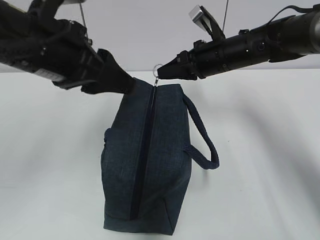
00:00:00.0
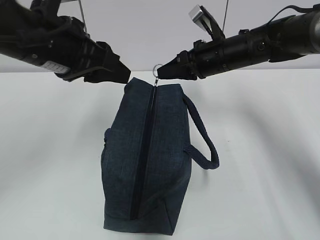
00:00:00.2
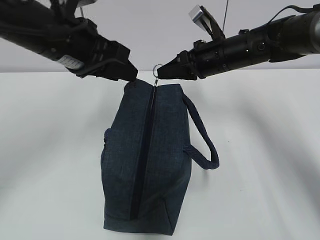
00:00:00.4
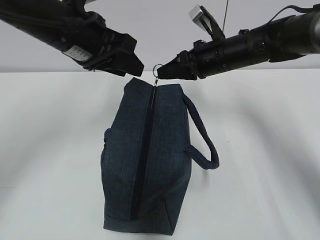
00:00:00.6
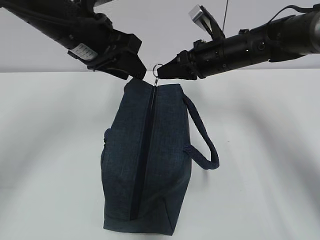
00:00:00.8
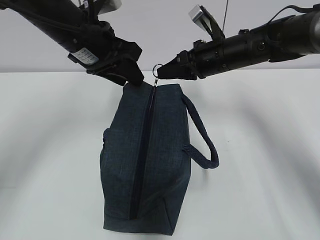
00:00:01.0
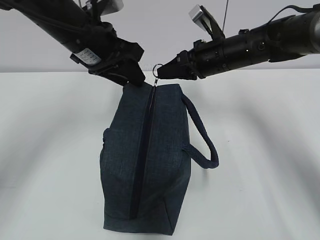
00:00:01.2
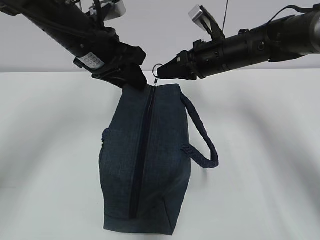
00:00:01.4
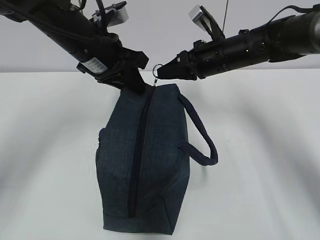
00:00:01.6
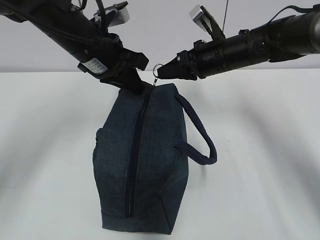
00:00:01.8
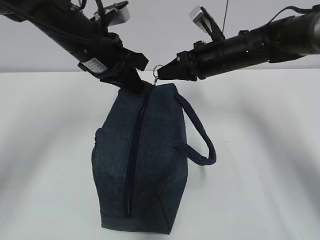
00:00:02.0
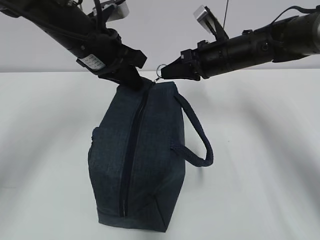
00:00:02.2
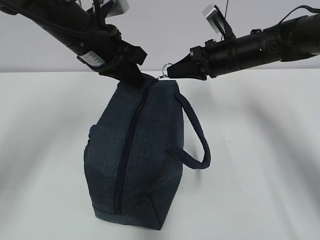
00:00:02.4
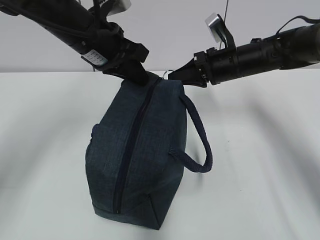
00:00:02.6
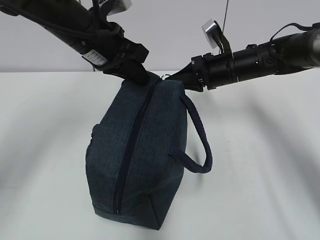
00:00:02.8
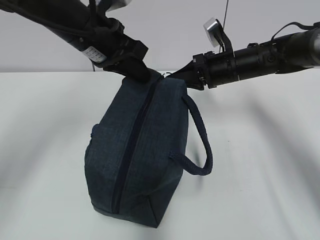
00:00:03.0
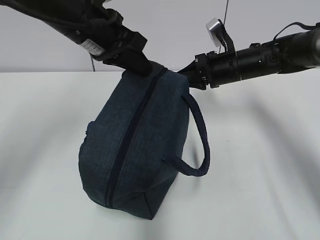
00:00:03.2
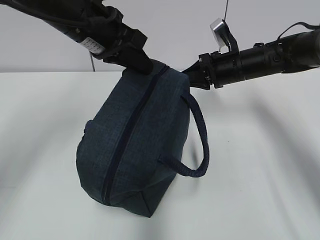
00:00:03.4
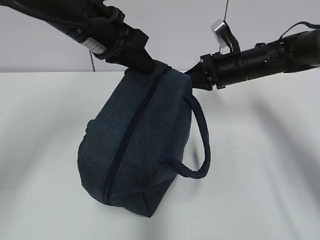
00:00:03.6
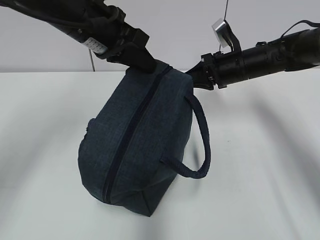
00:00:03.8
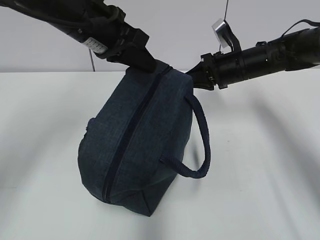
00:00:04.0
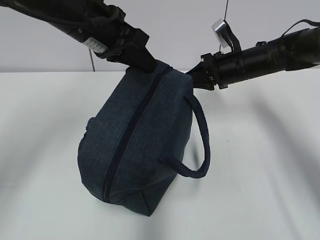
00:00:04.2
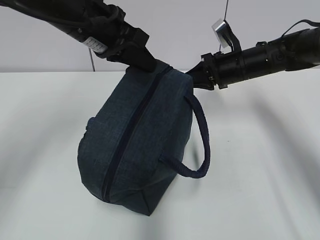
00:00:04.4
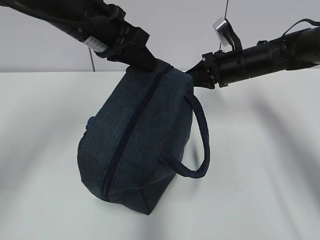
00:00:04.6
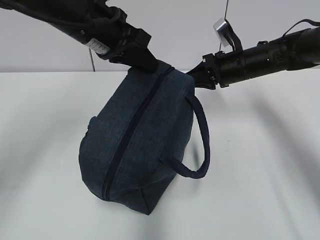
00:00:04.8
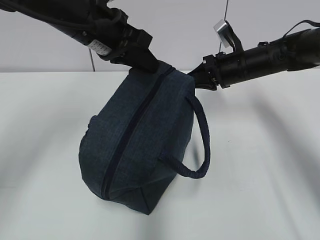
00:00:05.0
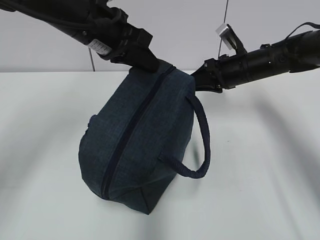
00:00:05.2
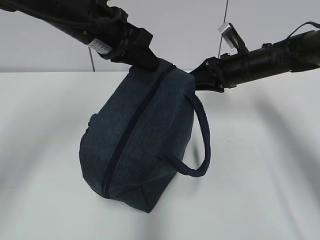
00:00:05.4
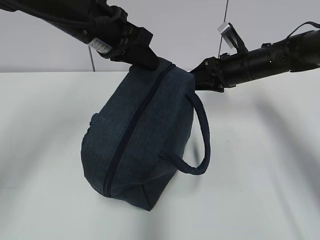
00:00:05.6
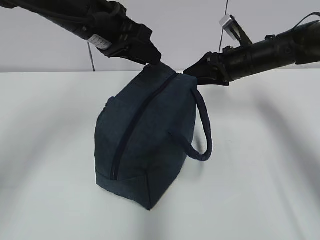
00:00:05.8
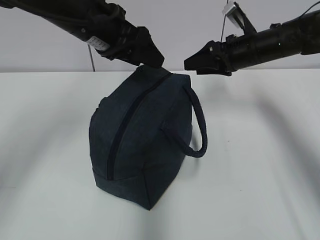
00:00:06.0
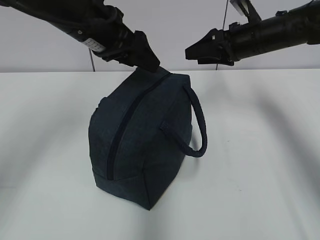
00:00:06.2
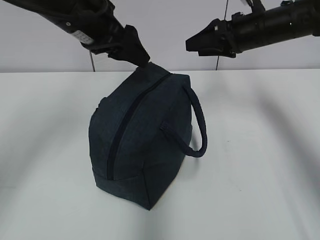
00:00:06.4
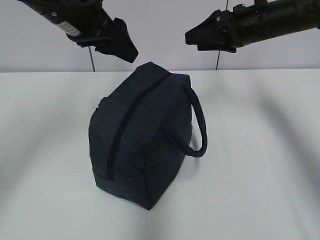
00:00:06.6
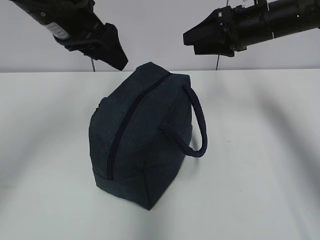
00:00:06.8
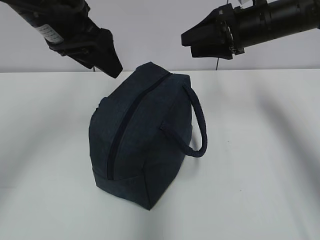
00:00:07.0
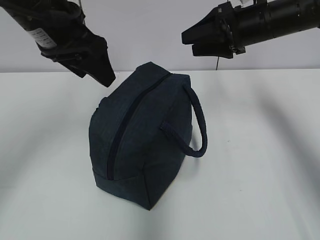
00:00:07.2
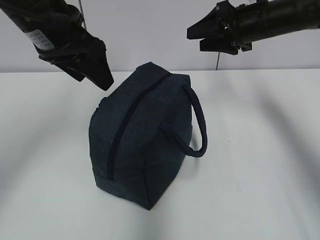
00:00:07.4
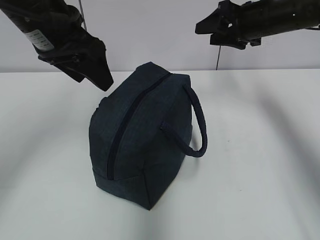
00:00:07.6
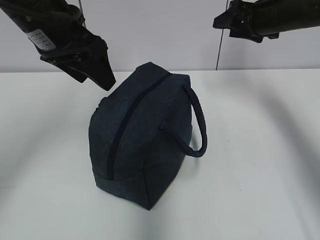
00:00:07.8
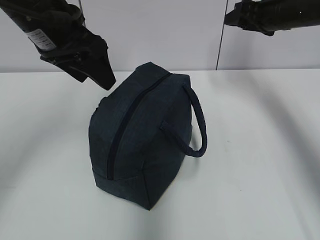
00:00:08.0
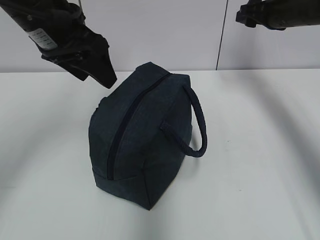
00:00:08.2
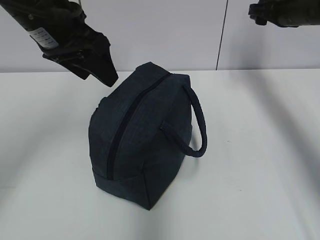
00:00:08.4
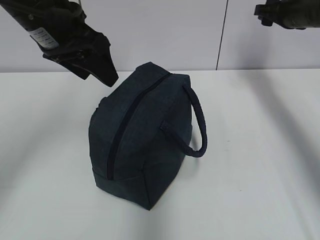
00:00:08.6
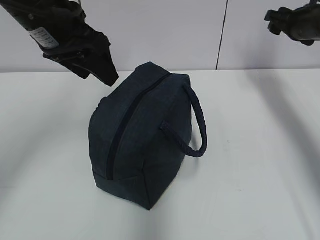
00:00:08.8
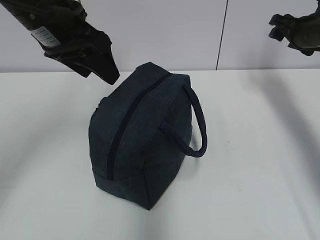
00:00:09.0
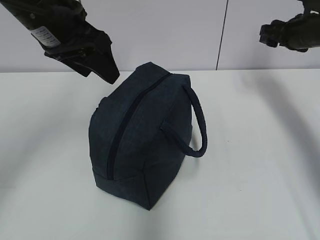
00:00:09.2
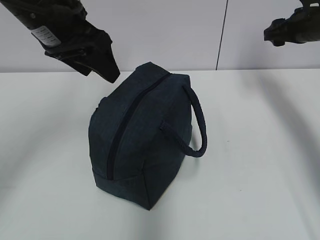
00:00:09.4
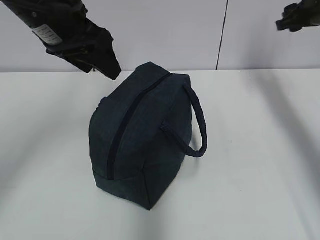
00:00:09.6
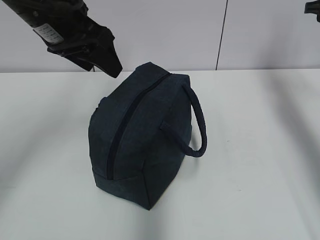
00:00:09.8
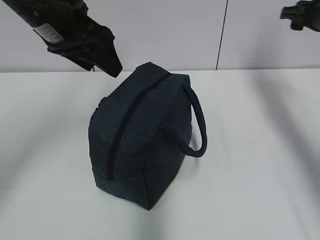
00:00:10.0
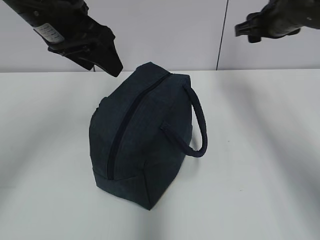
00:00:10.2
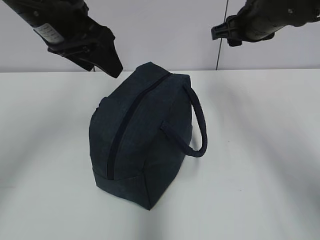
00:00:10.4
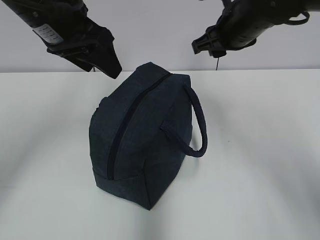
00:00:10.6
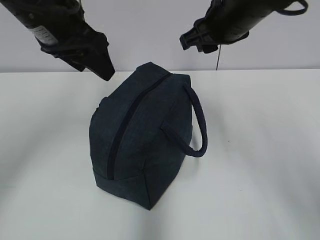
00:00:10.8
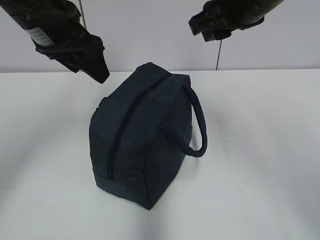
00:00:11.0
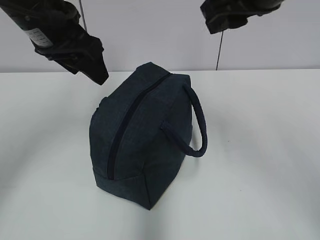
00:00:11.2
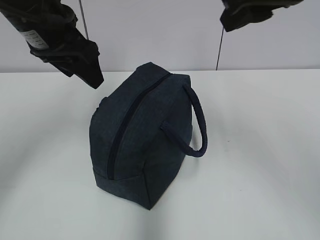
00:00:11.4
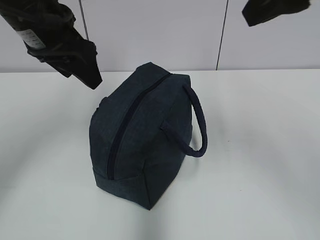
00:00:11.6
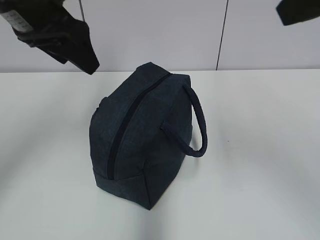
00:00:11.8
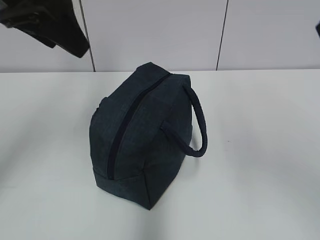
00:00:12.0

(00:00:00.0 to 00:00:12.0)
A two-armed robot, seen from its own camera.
00:00:00.0 - 00:00:01.6: The left gripper heads forward, covering about 10 cm, and closes up.
00:00:01.6 - 00:00:04.4: The grippers make only small movements.
00:00:04.4 - 00:00:06.0: The right gripper opens up. Meanwhile the left gripper opens.
00:00:06.0 - 00:00:07.6: The left gripper changes place by about 5 cm, while the right gripper moves upward, roughly 5 cm.
00:00:07.6 - 00:00:09.0: The right gripper shifts about 10 cm to the right.
00:00:09.0 - 00:00:10.4: The right gripper shifts some 15 cm to the left.
00:00:10.4 - 00:00:12.0: The right gripper moves backward and upward, about 30 cm; the left gripper shifts roughly 10 cm upward and backward.

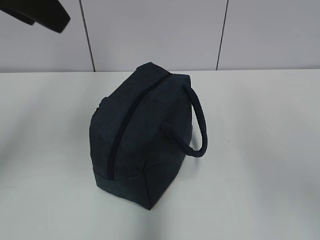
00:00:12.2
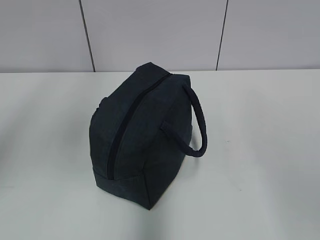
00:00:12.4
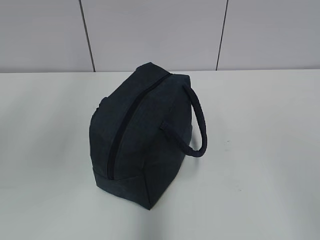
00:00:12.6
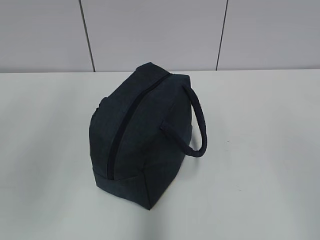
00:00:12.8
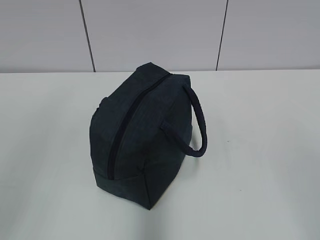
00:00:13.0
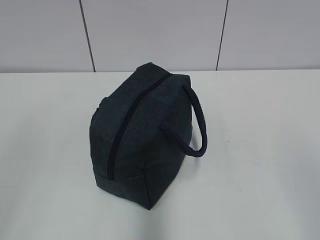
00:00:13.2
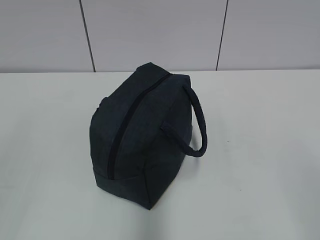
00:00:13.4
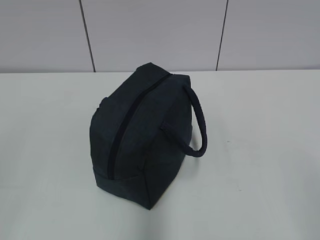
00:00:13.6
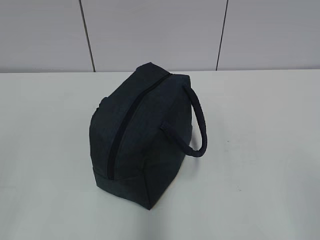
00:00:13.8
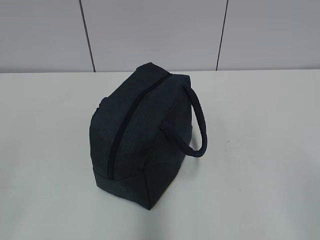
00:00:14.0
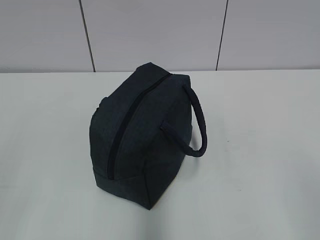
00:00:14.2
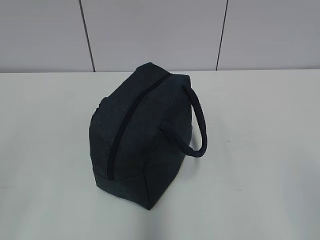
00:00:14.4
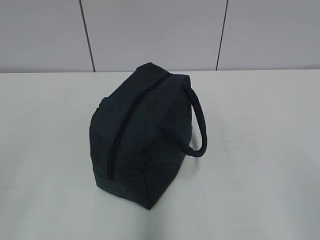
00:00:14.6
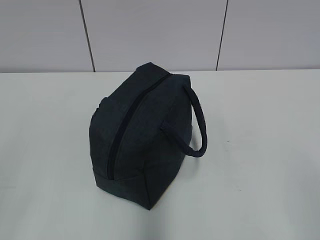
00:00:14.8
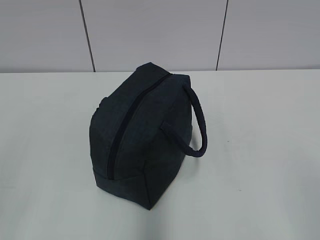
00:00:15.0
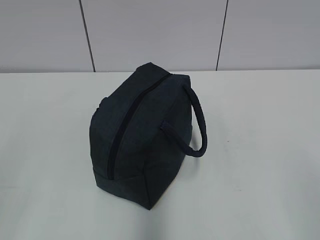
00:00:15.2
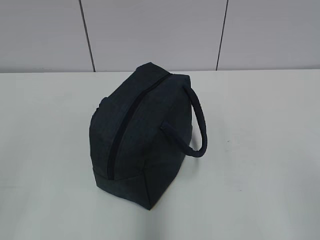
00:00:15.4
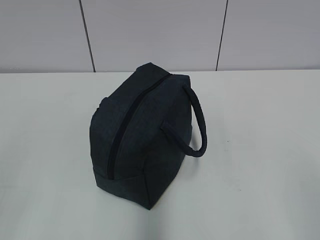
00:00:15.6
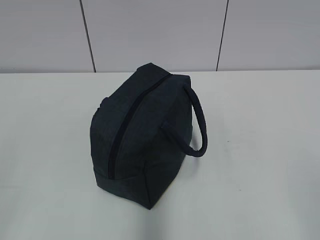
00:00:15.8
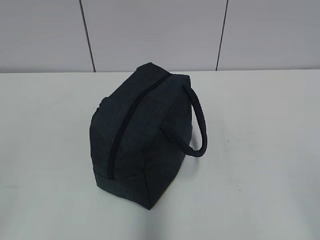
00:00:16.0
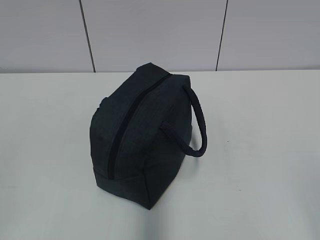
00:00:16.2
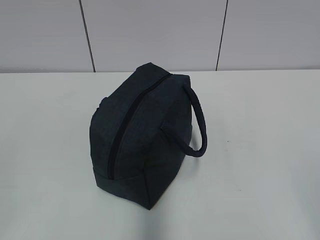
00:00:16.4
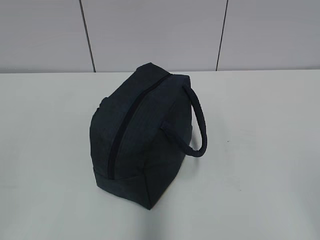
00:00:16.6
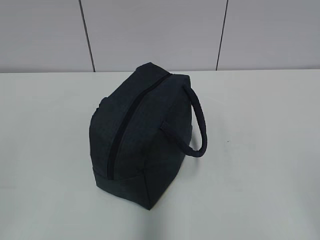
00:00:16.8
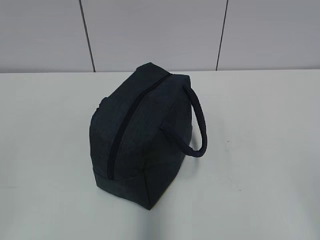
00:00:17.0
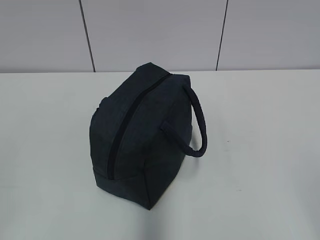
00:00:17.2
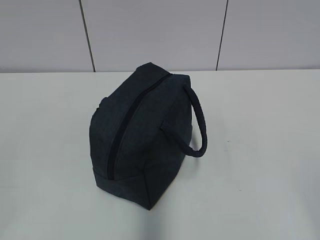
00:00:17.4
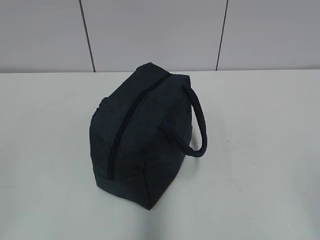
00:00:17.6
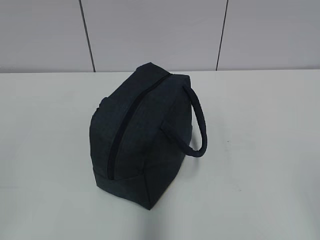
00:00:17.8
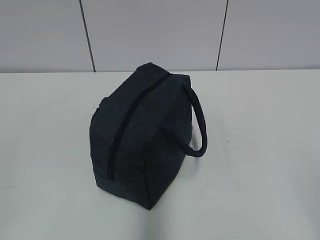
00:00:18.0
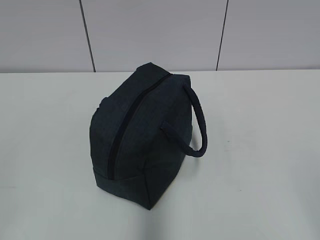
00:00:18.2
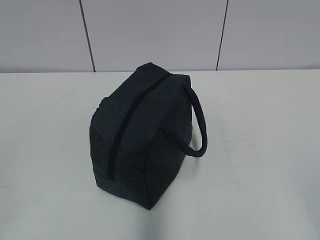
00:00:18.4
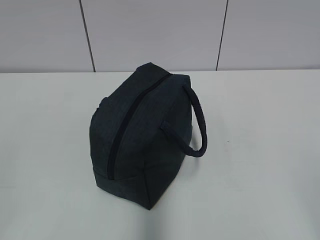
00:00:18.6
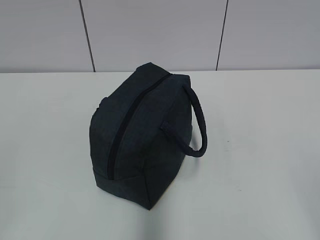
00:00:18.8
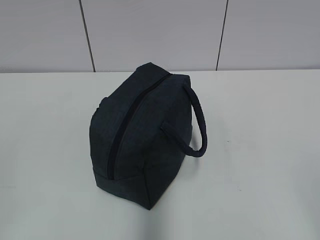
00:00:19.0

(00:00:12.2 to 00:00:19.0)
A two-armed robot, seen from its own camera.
00:00:12.2 - 00:00:13.6: The left gripper heads backward, to the left and downward, covering approximately 30 cm.
00:00:16.2 - 00:00:19.0: The two grippers keep their place.

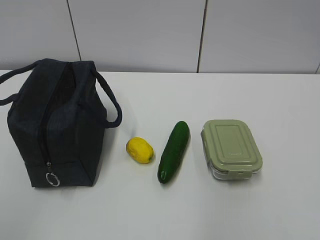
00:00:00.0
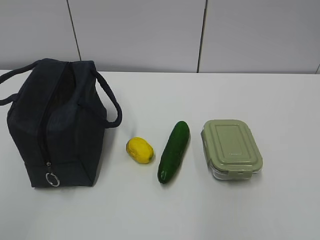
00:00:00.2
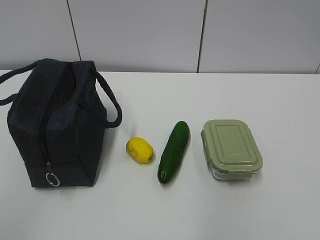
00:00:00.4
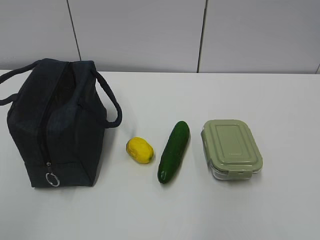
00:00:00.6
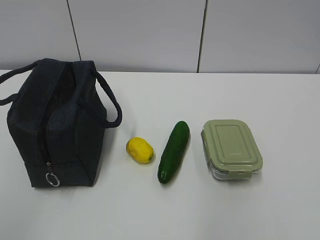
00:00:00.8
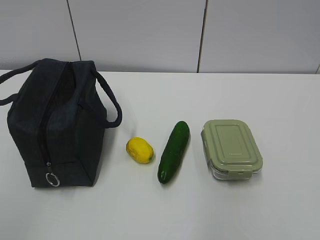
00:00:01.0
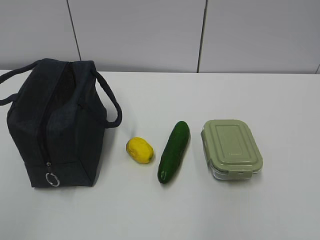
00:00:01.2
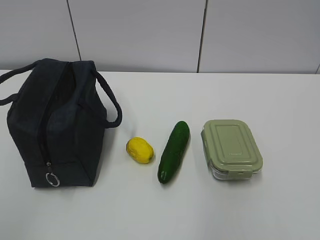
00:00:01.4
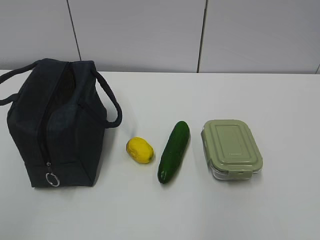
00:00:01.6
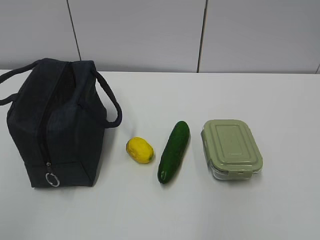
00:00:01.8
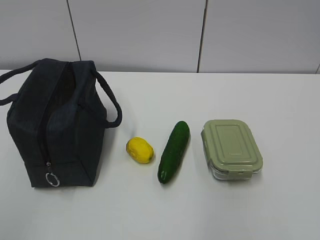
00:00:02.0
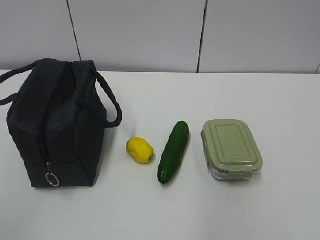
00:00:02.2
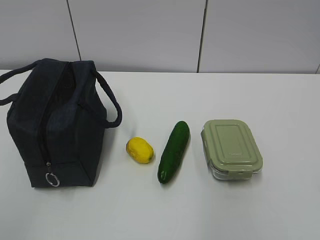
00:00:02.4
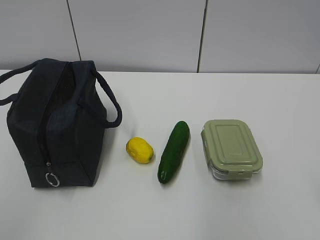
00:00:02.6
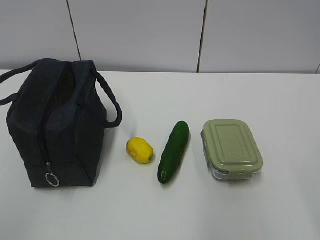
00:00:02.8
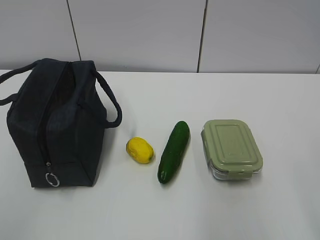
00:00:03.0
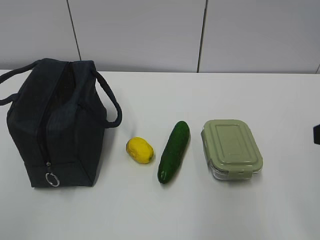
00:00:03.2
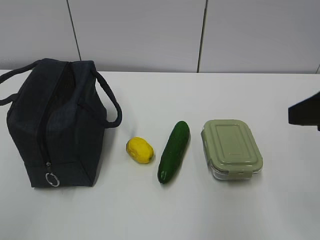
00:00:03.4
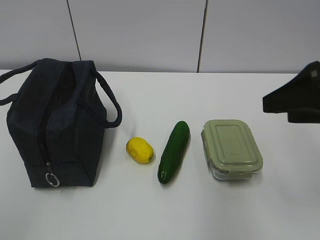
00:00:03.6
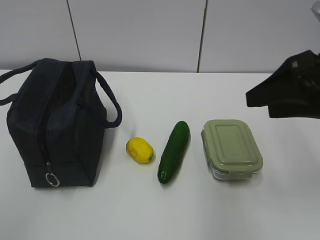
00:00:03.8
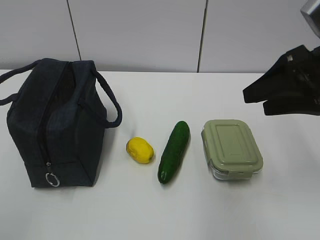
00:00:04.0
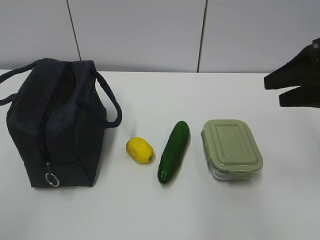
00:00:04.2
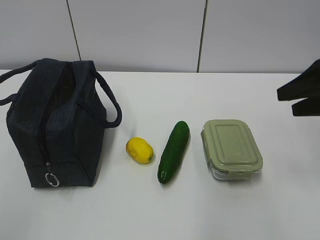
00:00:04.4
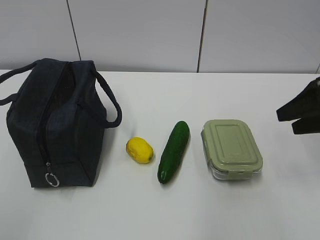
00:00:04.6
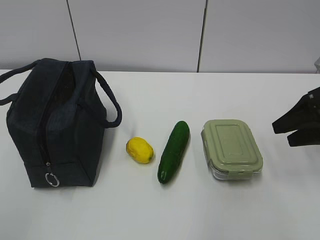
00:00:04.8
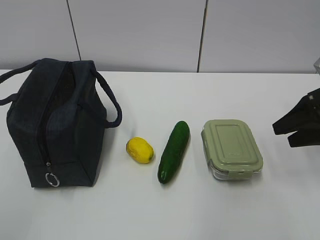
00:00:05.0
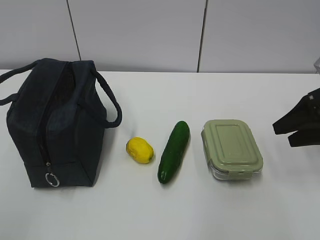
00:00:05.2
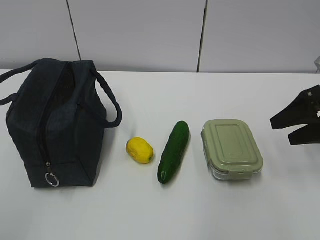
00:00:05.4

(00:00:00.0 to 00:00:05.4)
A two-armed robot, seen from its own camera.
00:00:02.8 - 00:00:04.0: The right gripper heads forward, covering roughly 15 cm.
00:00:04.0 - 00:00:05.4: The right gripper moves downward and to the right, about 10 cm.
